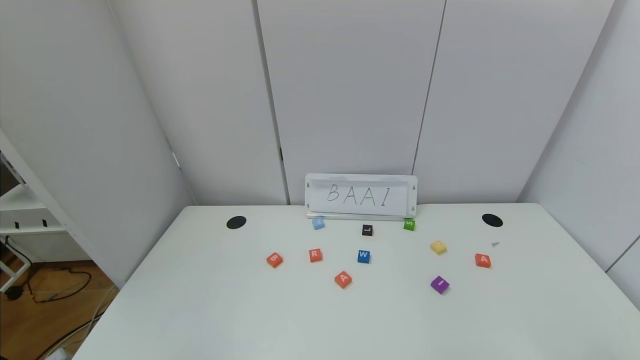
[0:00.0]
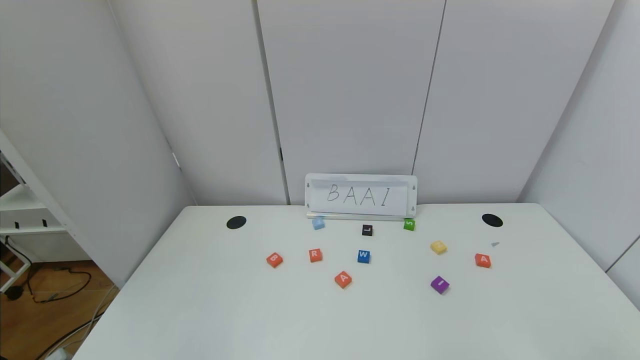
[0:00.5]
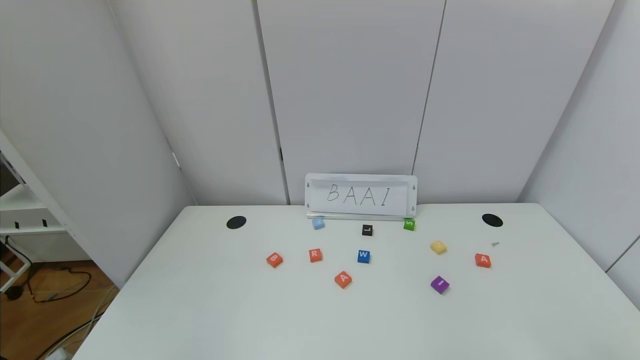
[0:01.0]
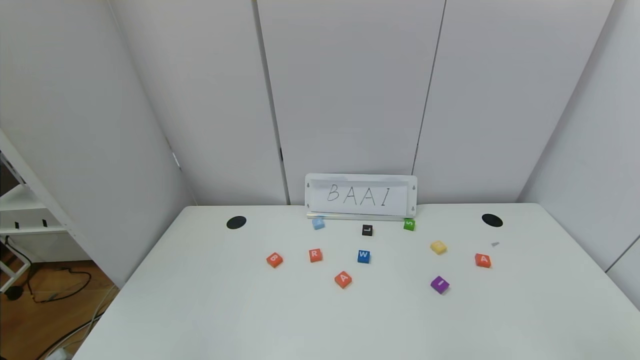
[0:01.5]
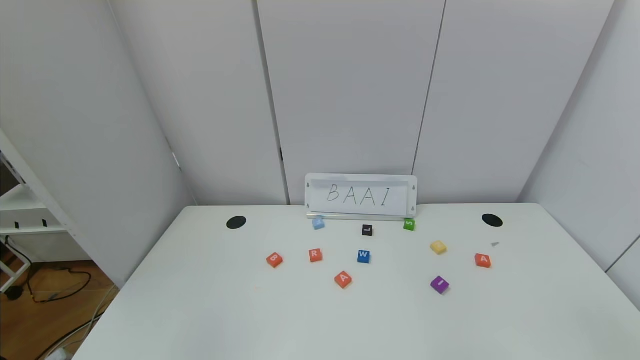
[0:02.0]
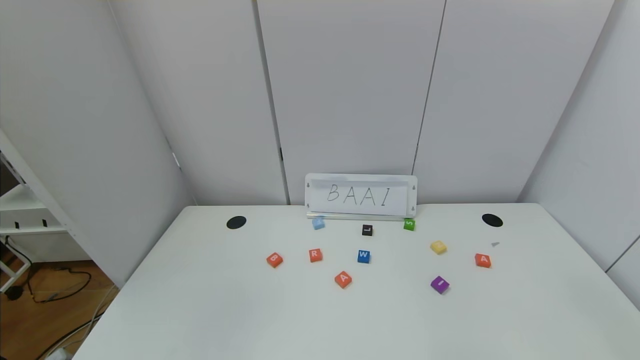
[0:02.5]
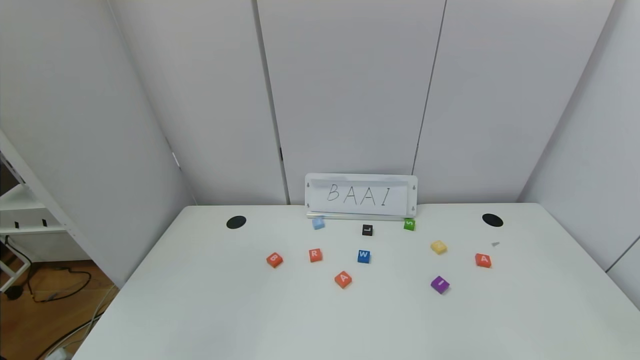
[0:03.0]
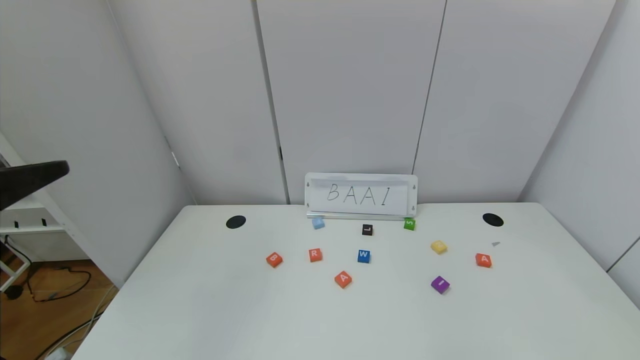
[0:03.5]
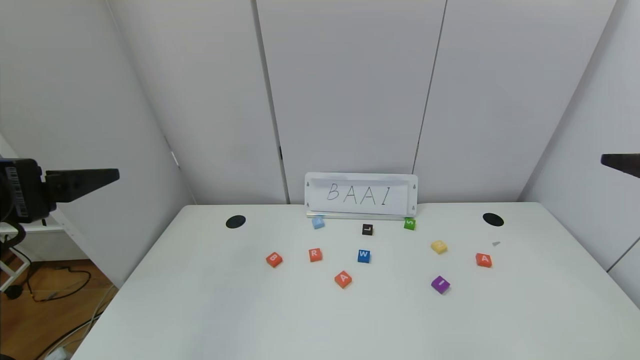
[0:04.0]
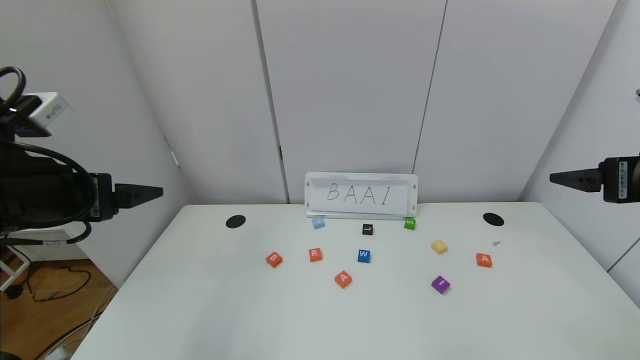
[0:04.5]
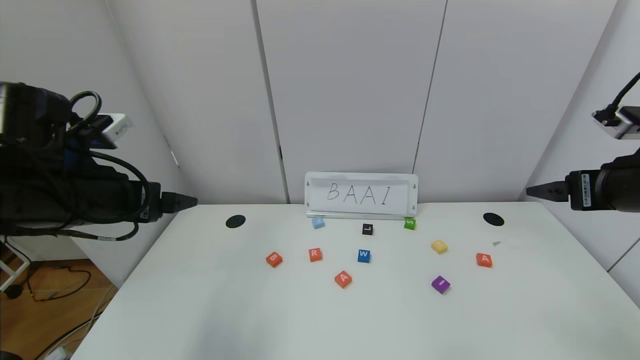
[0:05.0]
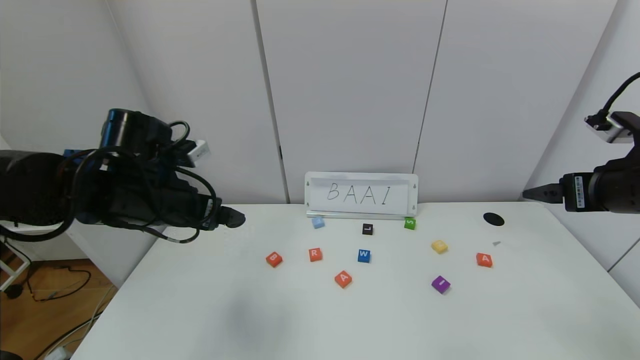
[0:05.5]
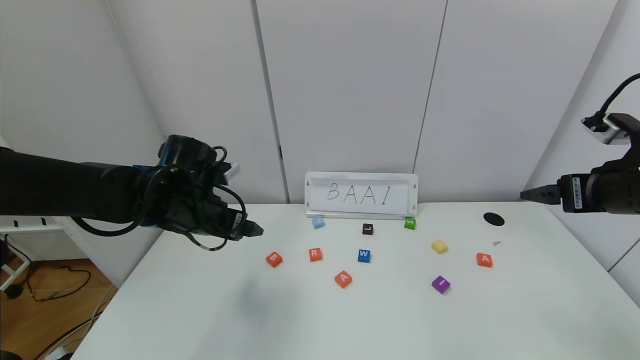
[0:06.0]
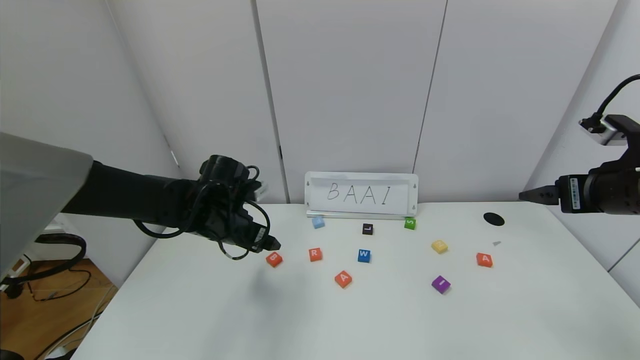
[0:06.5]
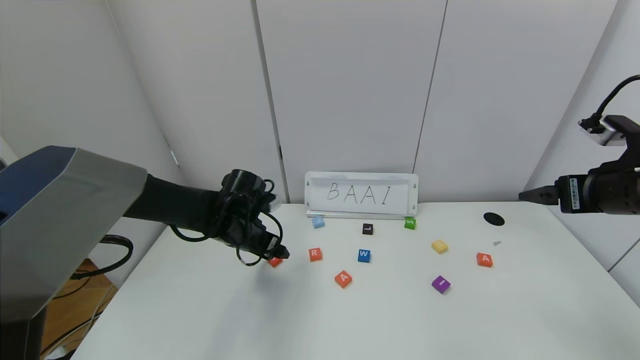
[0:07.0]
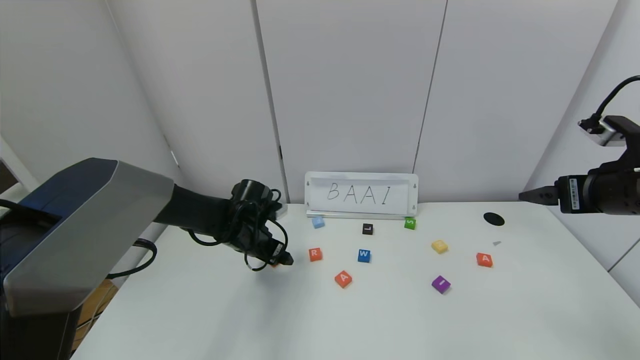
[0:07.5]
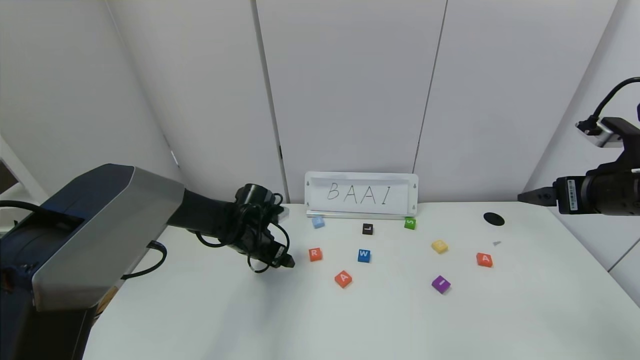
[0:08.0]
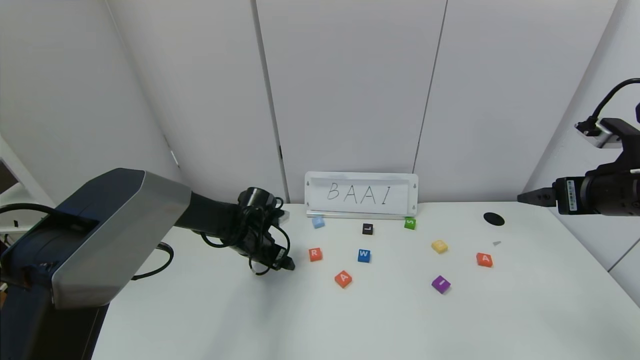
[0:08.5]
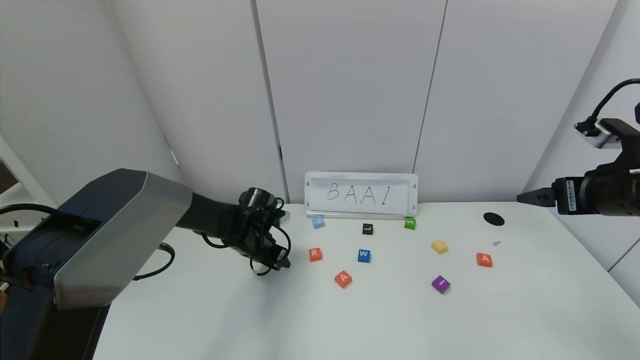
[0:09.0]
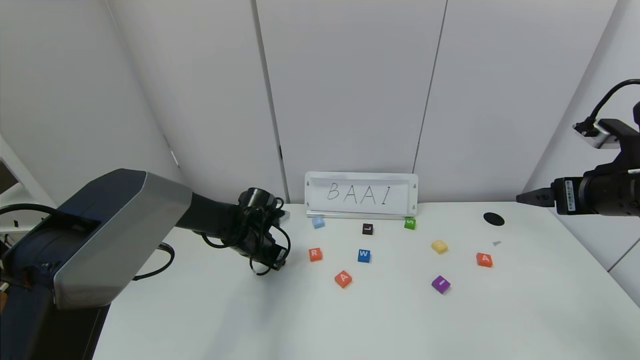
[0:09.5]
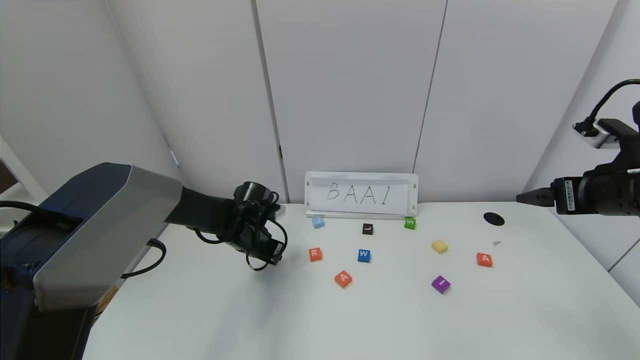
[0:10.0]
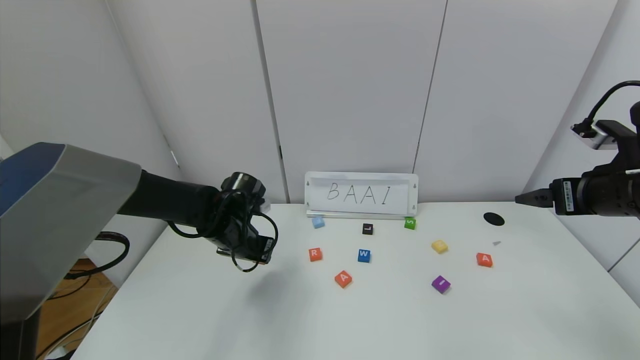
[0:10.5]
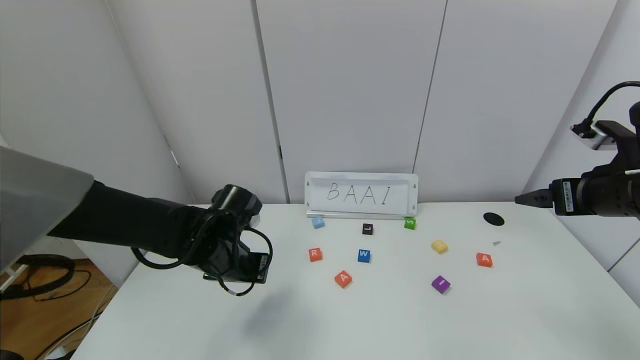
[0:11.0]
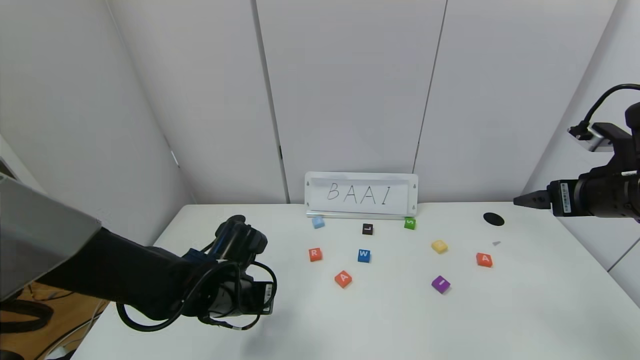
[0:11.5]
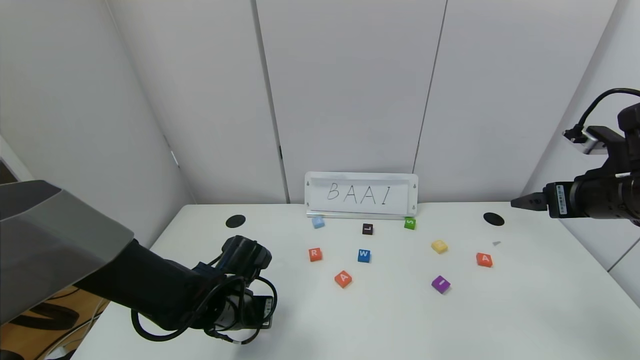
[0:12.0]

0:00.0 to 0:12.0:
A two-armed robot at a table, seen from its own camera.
Task of the whole recording: use the gripper to find blocks with the letters b, a, a, and i on the table and arrange them into BAAI, then find r and N and turn the arranged baai into brian.
0:02.0 to 0:04.0: The left gripper shifts roughly 25 cm forward and upward.
0:04.0 to 0:06.0: The left gripper is displaced forward and downward by about 25 cm. Meanwhile the right gripper goes about 10 cm forward and downward.
0:06.0 to 0:08.0: The left gripper travels downward and forward by roughly 15 cm.
0:08.0 to 0:10.0: The left gripper closes up.
0:10.0 to 0:12.0: The left gripper shifts roughly 15 cm backward.

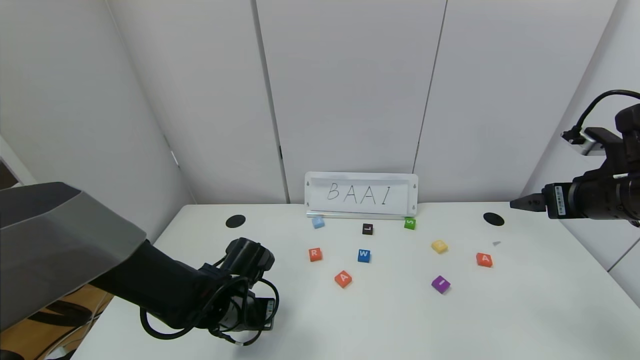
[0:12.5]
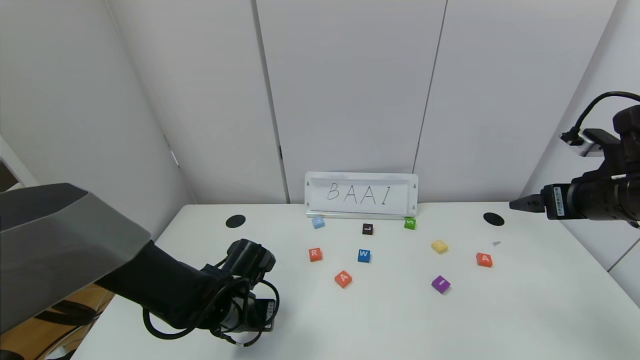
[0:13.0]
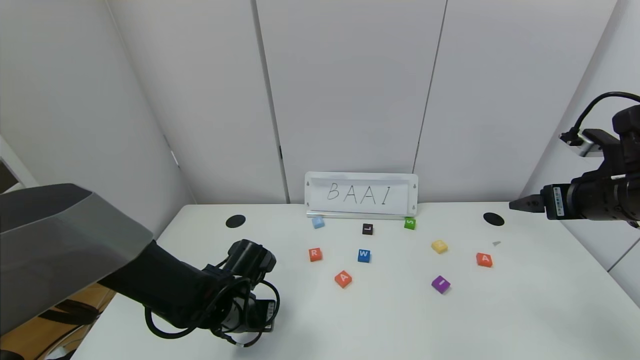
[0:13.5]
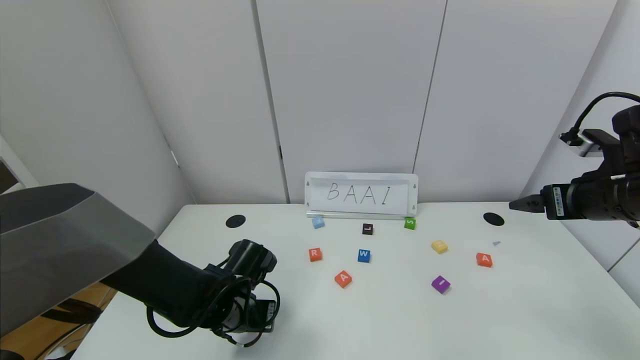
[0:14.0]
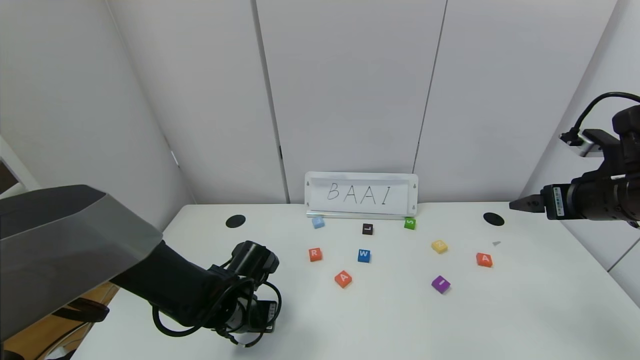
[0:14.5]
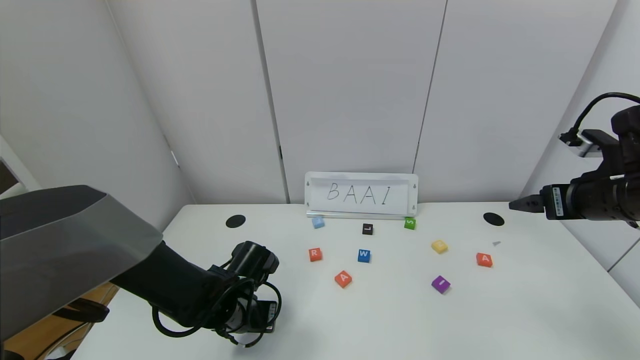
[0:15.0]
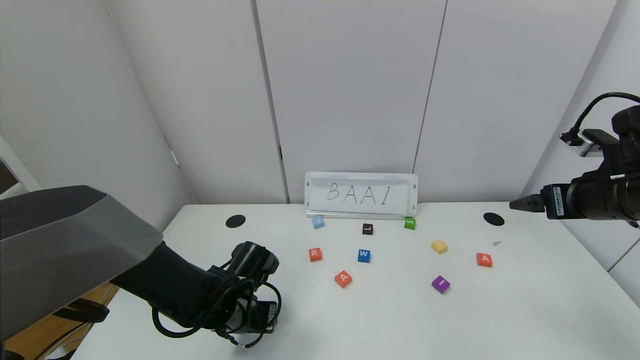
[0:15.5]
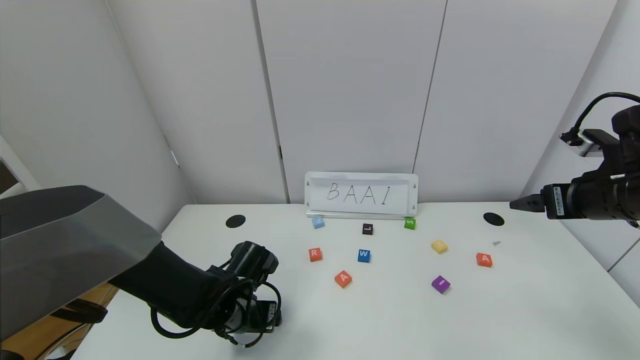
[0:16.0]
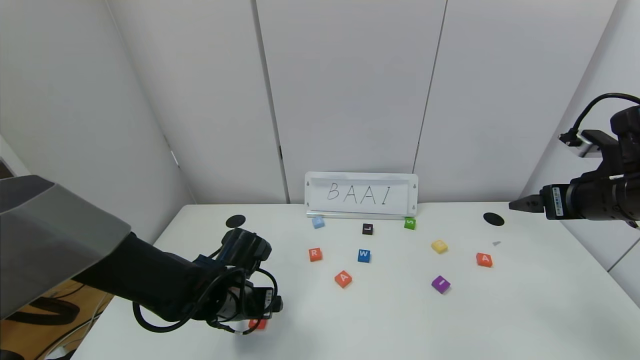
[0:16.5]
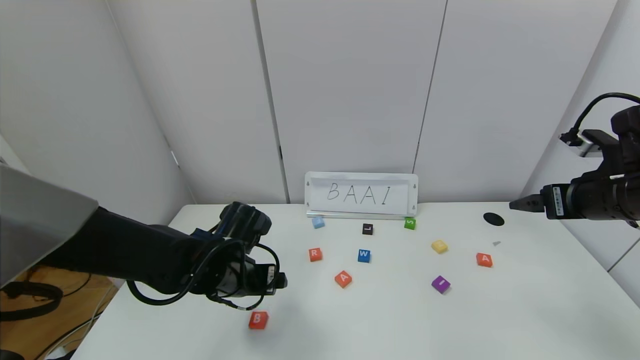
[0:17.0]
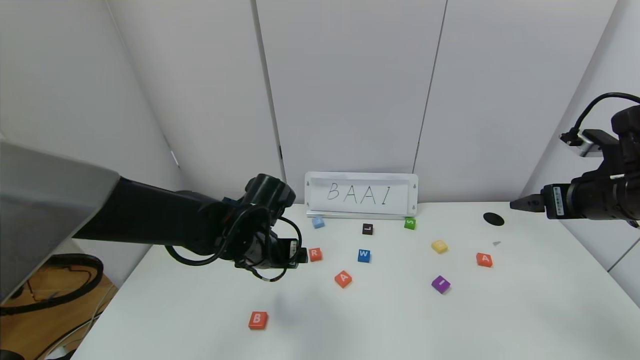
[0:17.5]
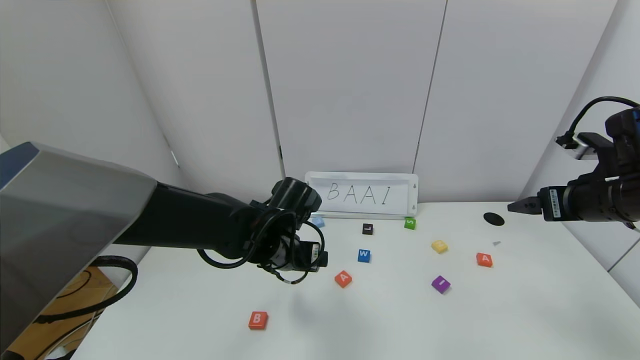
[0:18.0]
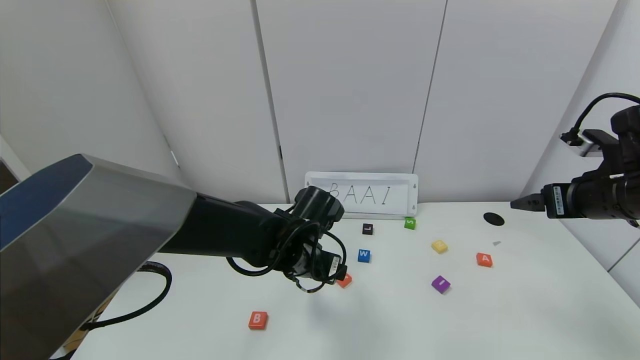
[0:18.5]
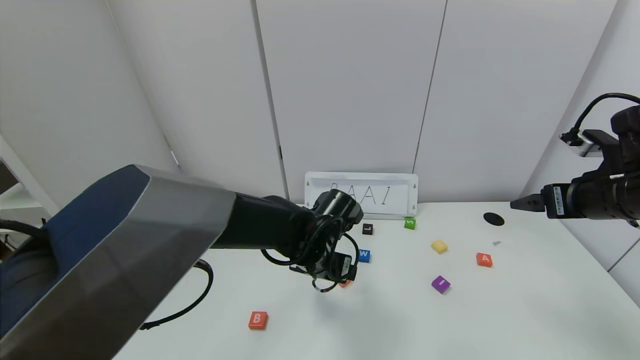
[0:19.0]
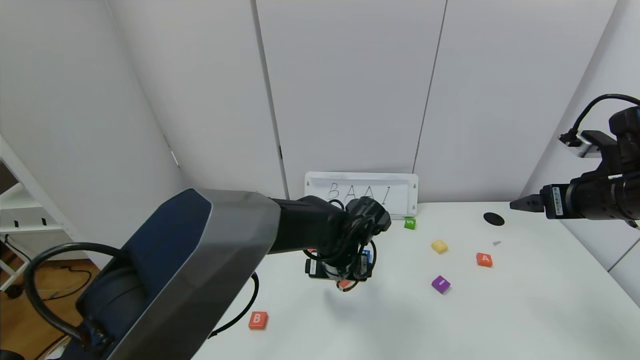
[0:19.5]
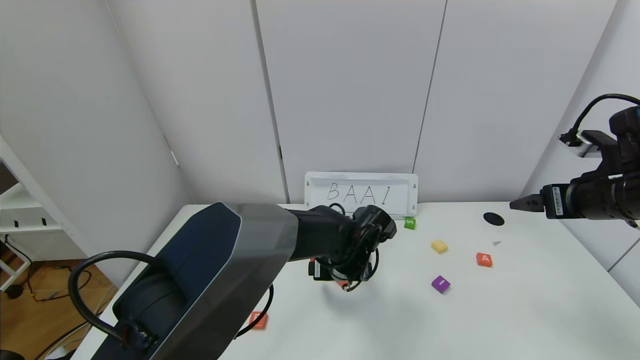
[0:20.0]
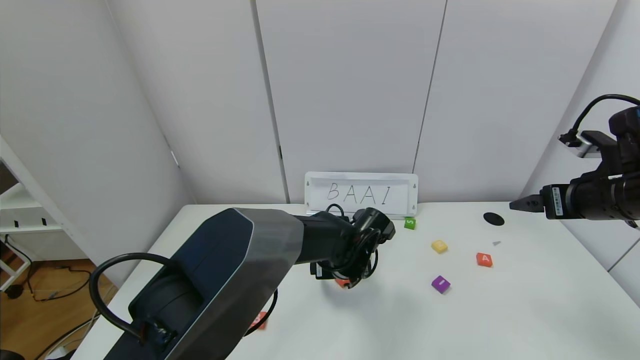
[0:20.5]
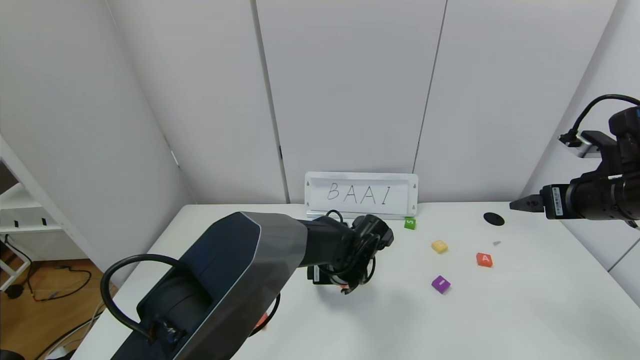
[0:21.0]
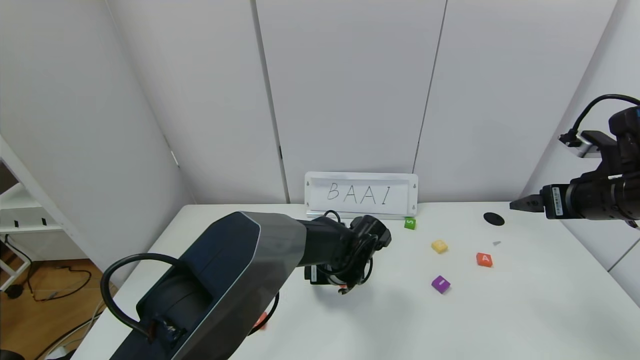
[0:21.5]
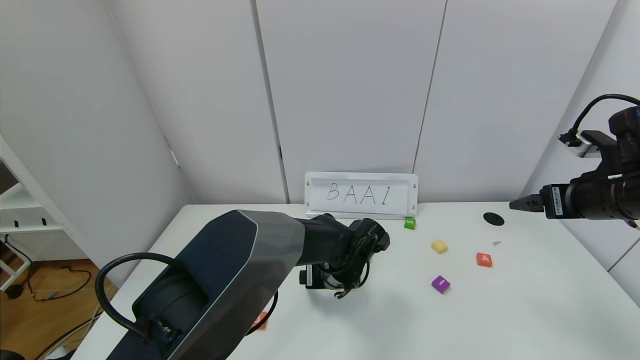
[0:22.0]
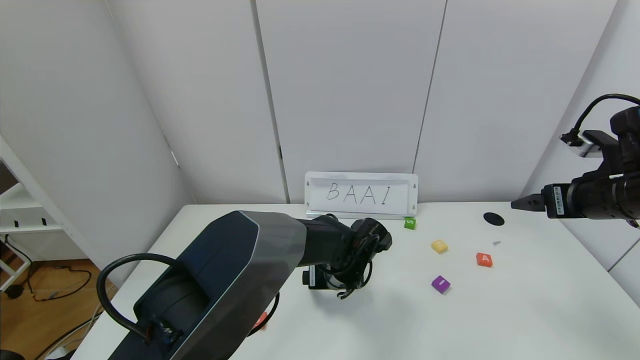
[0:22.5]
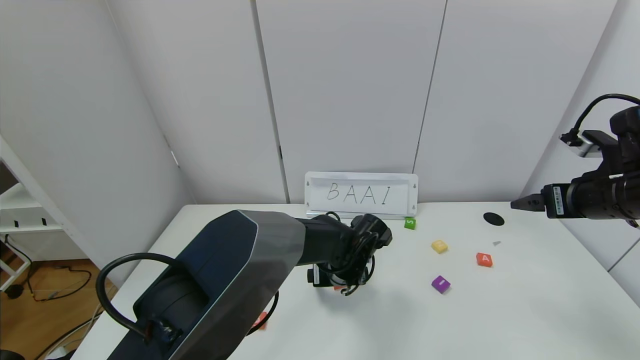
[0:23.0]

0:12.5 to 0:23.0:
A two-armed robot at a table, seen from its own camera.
Task of the whole recording: use the gripper to find blocks with the letters b, a, a, and i on the table and arrange them into BAAI, then find r and N and turn the arranged baai into brian.
Step, 0:12.5 to 0:16.0: Place the block B in the first location.
0:12.5 to 0:14.5: Both grippers stay about where they are.
0:14.5 to 0:16.5: The left gripper opens its fingers.
0:16.5 to 0:19.0: The left gripper moves to the right, some 15 cm.
0:19.0 to 0:21.0: The left gripper is displaced downward and to the right by roughly 10 cm.
0:21.0 to 0:23.0: The grippers move only a little.
